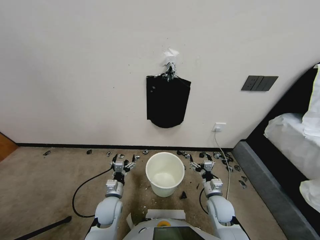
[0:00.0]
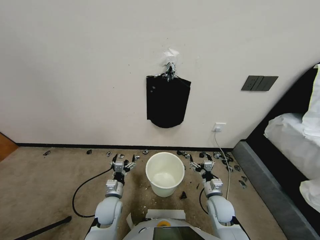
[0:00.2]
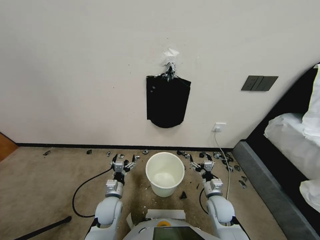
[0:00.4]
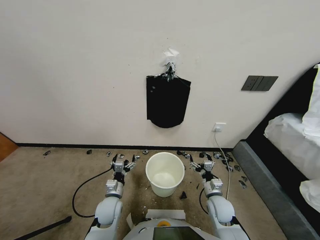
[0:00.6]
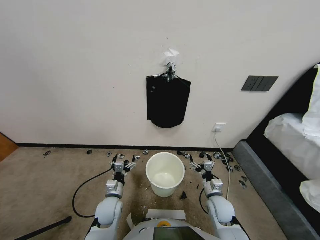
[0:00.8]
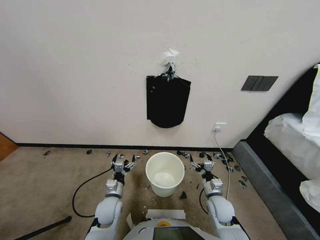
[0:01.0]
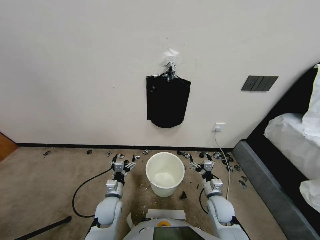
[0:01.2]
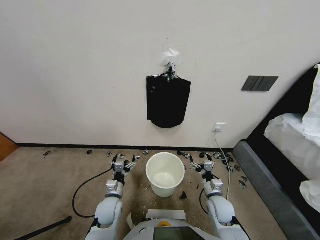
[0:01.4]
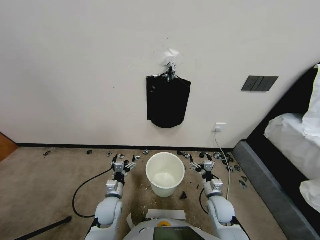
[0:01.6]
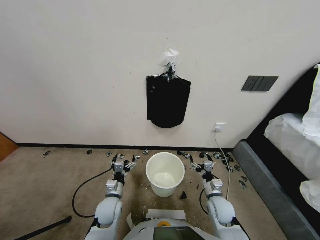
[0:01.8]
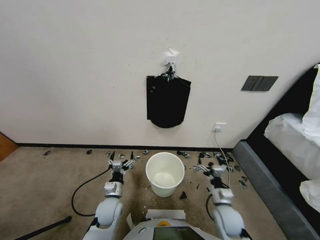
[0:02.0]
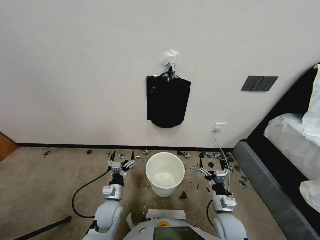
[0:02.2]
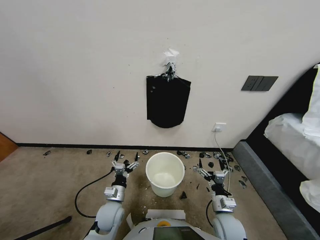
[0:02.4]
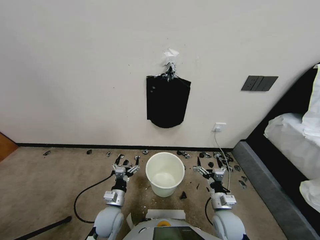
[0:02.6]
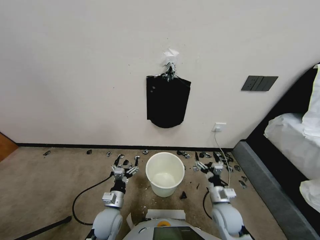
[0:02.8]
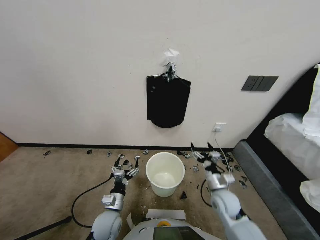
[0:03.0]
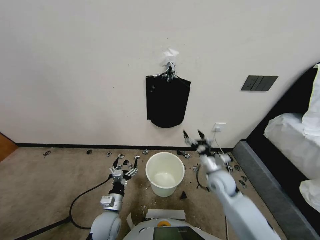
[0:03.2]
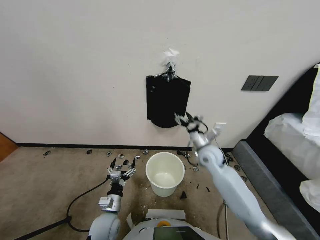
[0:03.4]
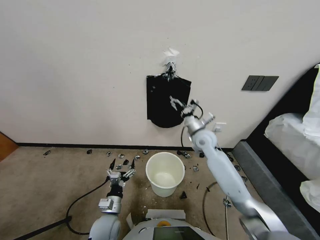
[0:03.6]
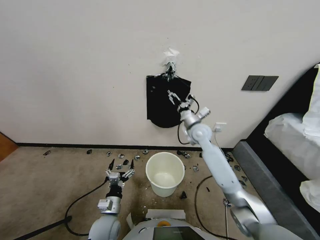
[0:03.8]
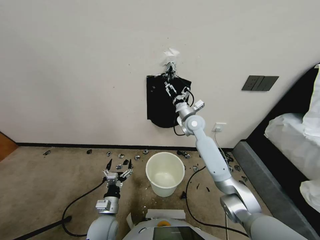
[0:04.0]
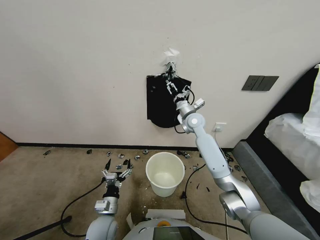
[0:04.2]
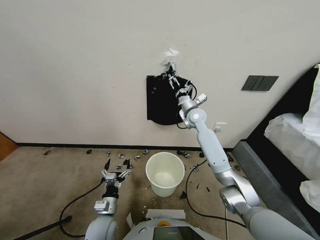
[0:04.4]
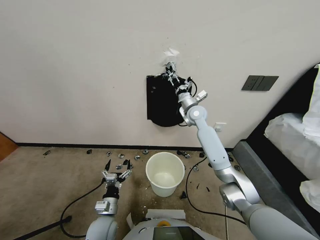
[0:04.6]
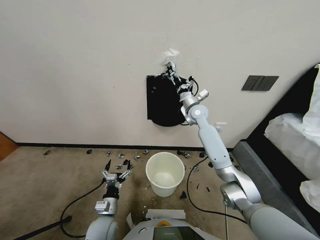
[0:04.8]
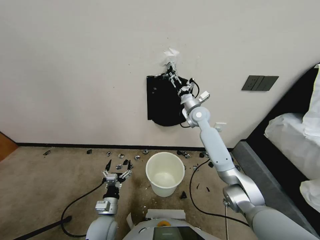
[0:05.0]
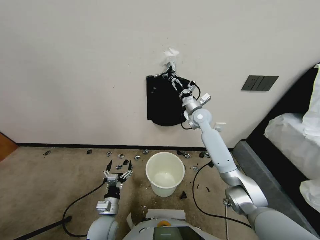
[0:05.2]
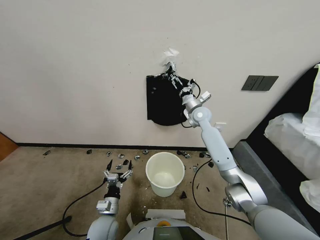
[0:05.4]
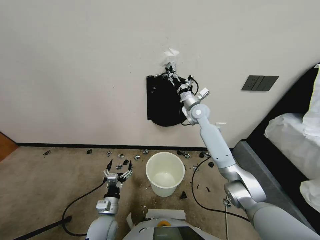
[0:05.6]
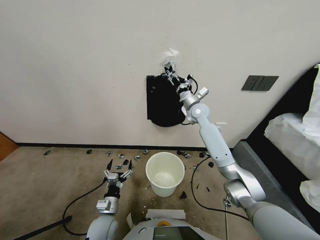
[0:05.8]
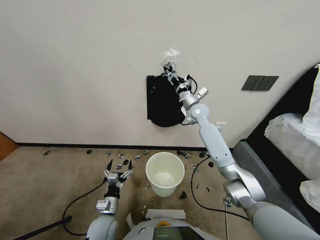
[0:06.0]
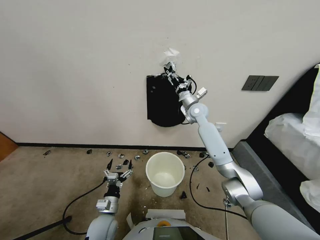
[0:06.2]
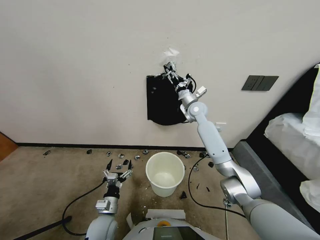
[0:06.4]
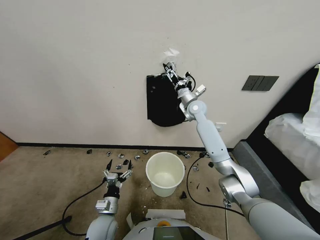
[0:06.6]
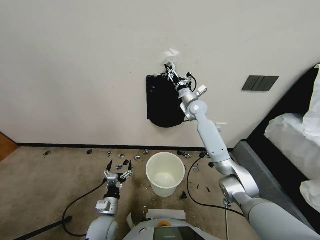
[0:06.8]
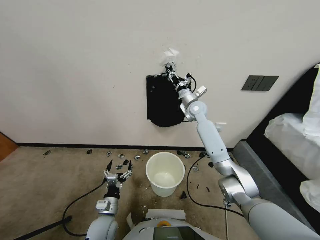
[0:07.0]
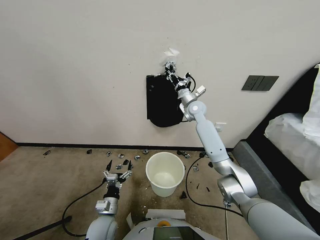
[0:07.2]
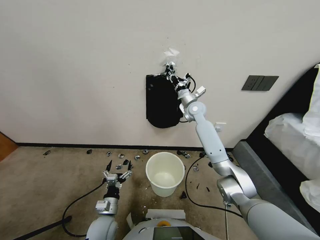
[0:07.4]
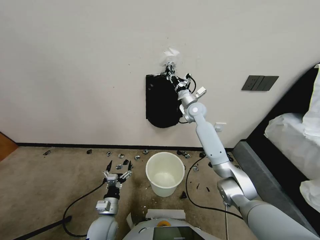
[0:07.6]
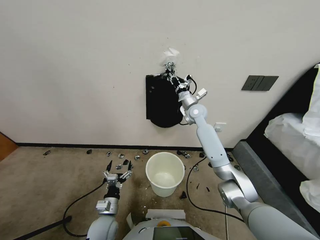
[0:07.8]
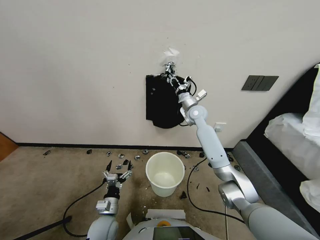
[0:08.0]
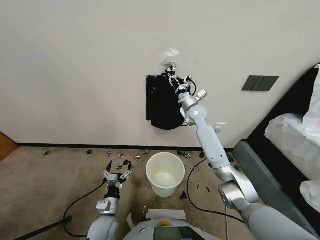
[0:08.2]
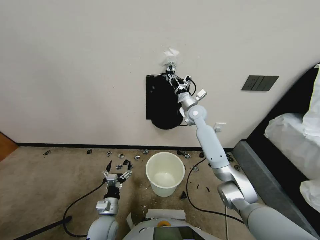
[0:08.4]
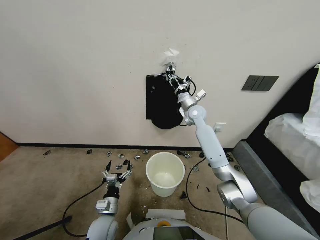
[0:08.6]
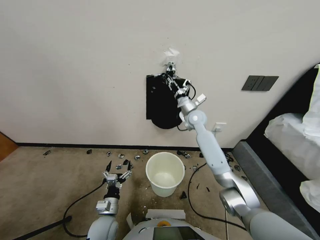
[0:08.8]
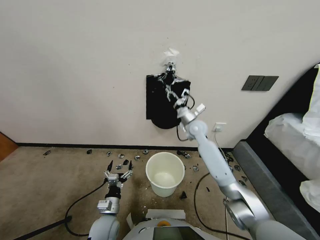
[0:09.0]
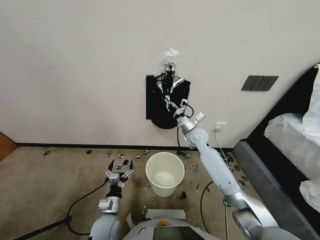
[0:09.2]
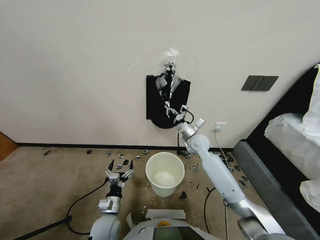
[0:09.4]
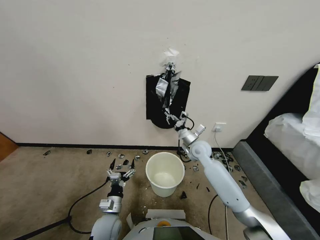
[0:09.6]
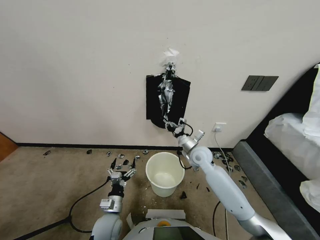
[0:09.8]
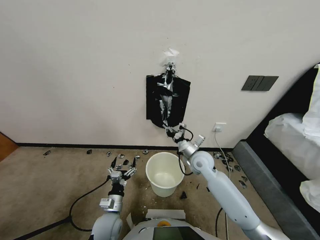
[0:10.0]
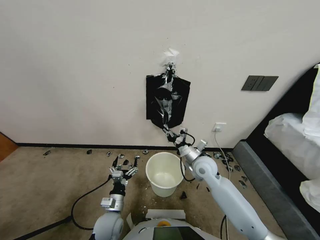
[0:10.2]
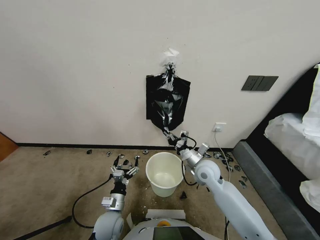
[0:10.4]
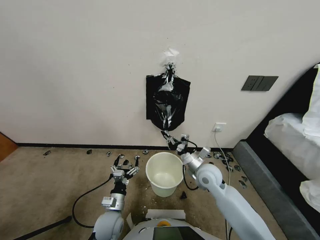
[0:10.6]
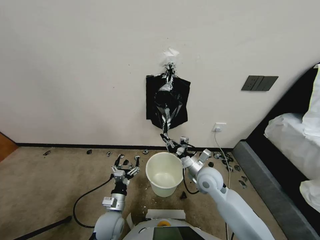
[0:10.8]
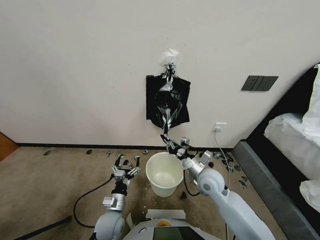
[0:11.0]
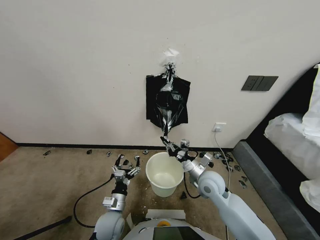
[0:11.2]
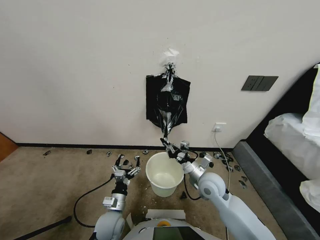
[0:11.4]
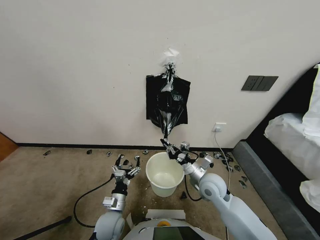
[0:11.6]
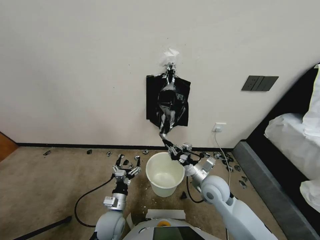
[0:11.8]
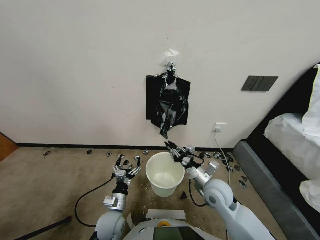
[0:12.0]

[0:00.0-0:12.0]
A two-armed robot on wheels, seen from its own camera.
Task of the whole recording: Place a trash bag onto the trash bin.
0:01.6 to 0:03.0: The right gripper is displaced upward by about 5 cm, while the left gripper goes about 5 cm backward.
0:03.0 to 0:04.4: The right gripper goes roughly 30 cm forward and upward.
0:04.4 to 0:06.0: The grippers move only a little.
0:06.0 to 0:07.6: The right gripper closes.
0:07.6 to 0:09.0: The right gripper travels backward and downward by approximately 10 cm.
0:09.0 to 0:10.4: The right gripper travels backward by some 15 cm.
0:10.4 to 0:12.0: The right gripper heads backward, covering about 10 cm, and opens up.

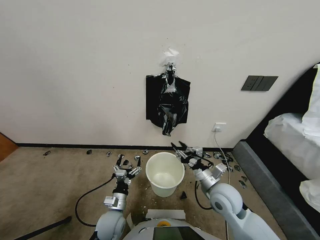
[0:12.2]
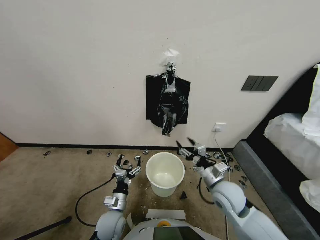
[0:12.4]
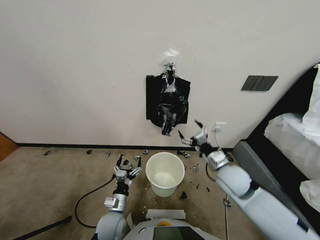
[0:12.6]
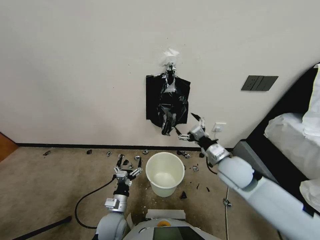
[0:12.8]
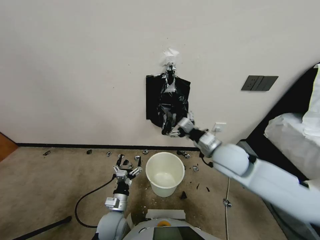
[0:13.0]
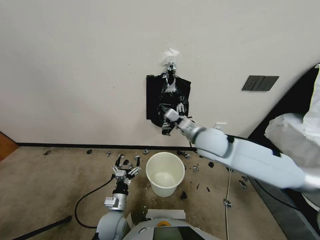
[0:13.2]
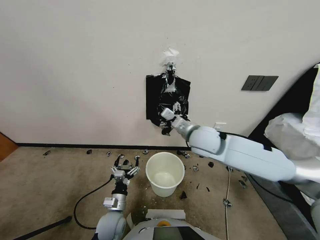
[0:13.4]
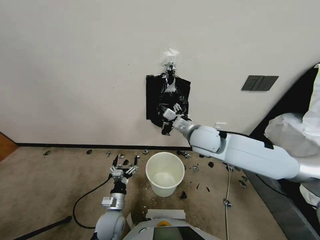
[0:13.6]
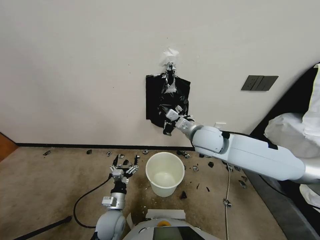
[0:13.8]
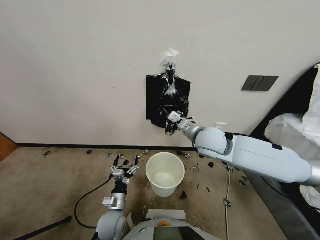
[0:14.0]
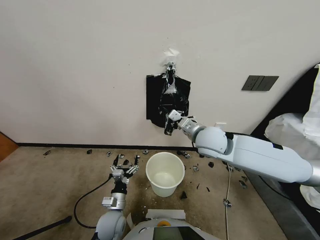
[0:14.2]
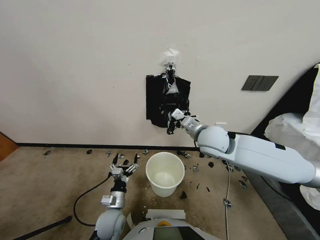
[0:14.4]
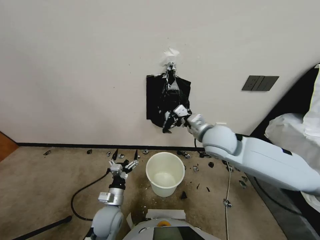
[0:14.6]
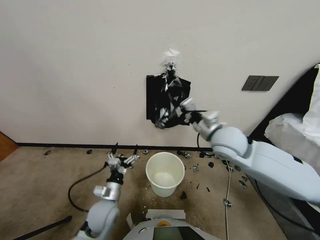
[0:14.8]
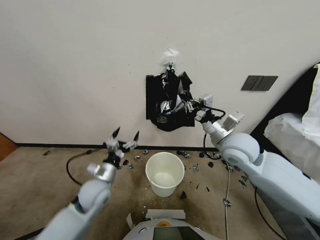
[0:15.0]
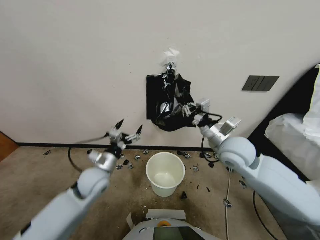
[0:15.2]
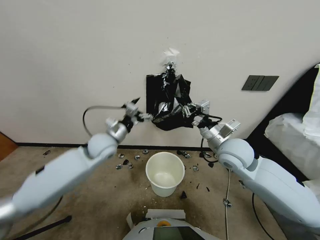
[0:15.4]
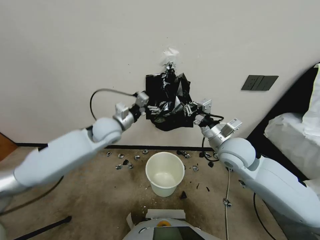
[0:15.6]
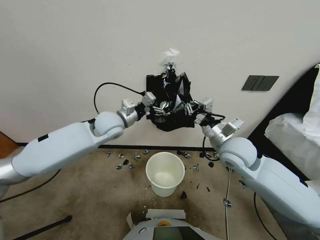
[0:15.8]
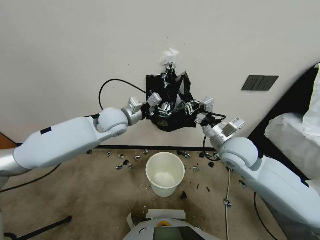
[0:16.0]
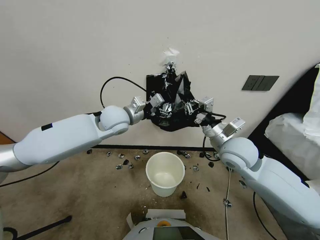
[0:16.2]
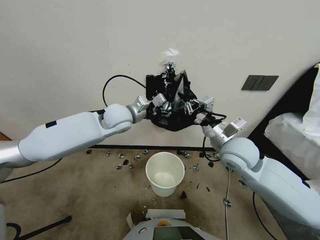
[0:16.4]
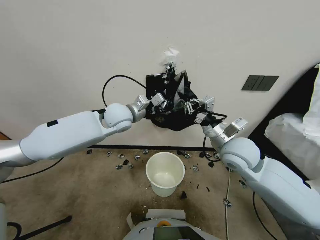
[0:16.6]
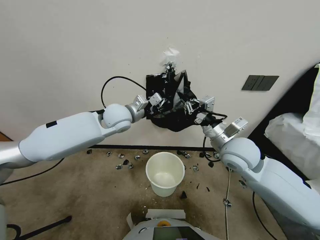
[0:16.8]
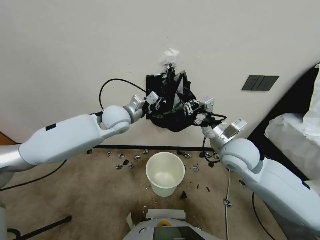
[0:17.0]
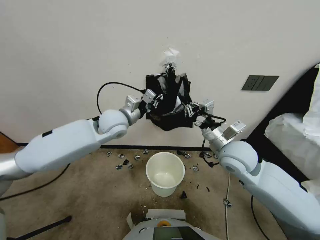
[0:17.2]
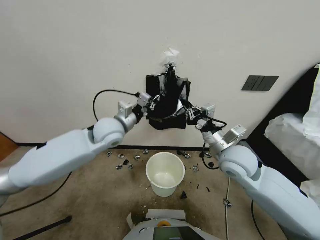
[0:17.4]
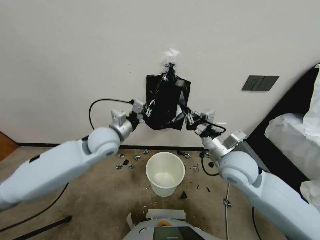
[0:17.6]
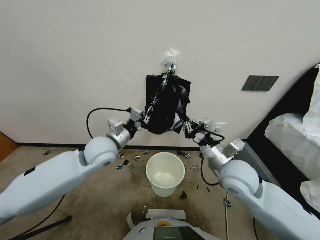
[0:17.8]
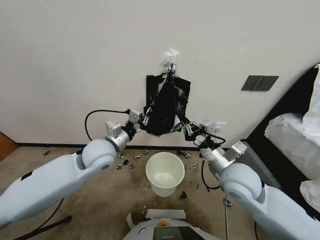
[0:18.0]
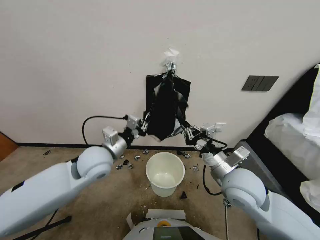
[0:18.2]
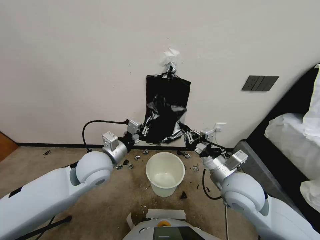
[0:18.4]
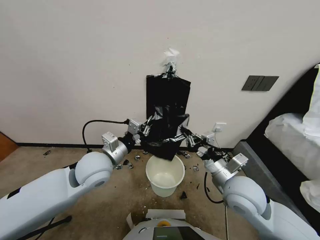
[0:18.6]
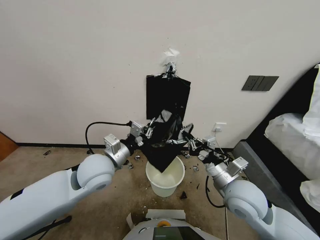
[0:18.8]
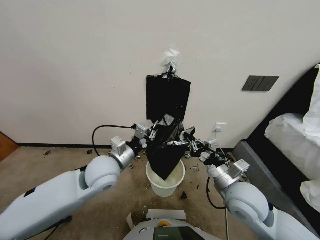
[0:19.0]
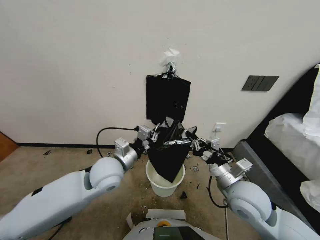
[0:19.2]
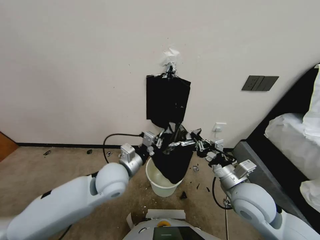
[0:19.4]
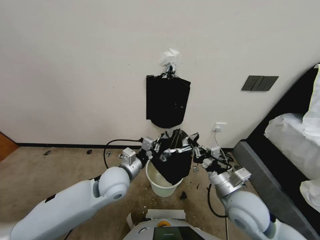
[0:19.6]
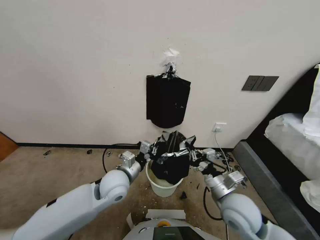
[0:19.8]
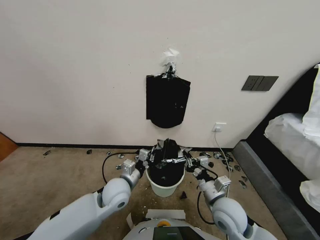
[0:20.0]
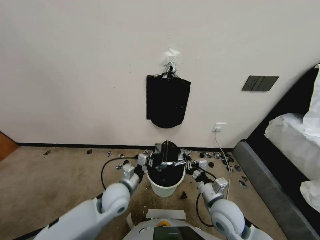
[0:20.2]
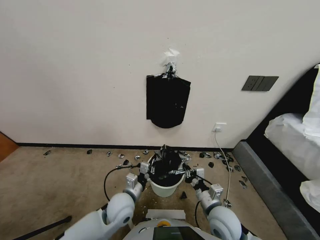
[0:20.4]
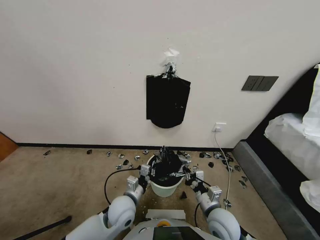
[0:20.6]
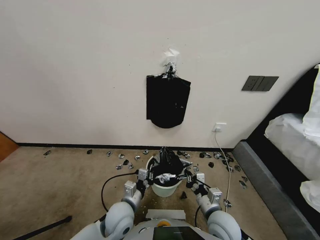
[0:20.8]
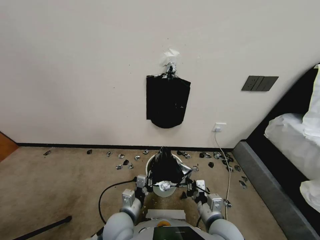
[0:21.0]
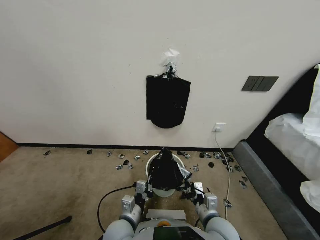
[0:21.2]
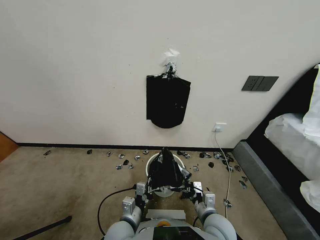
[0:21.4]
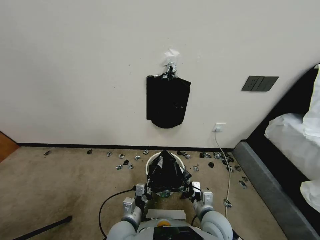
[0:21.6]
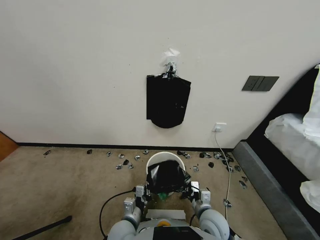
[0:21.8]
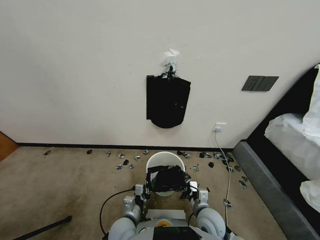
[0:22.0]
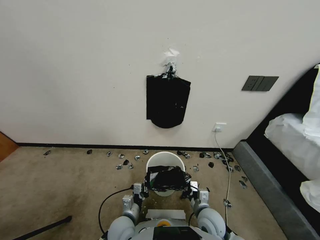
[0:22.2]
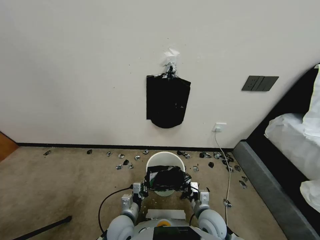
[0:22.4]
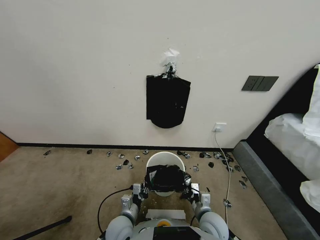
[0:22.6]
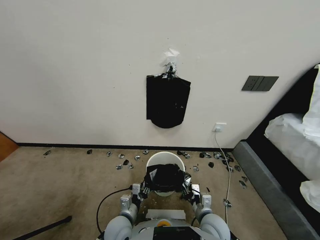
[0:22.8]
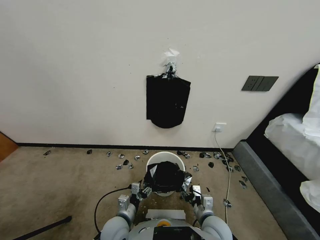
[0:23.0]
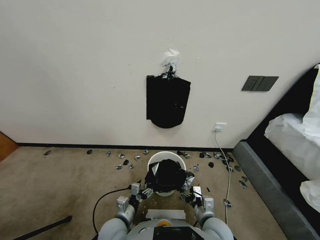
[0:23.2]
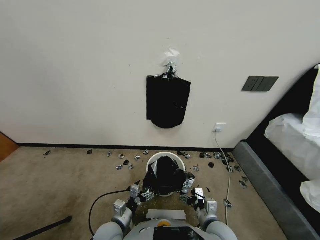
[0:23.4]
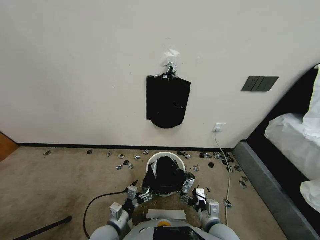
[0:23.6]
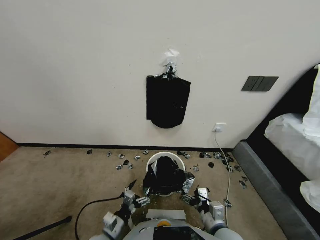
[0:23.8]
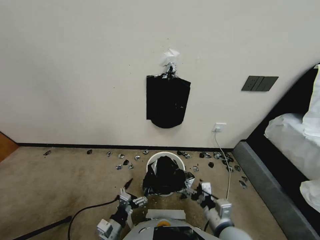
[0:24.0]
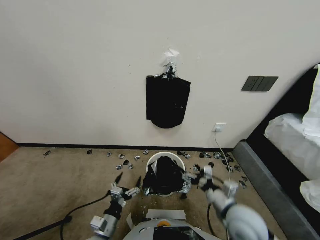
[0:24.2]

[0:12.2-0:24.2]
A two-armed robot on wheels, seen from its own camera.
Task of the whole recording: Place a trash bag onto the trash bin.
0:12.2 to 0:13.8: The right gripper is displaced upward, forward and to the left by approximately 20 cm, and opens, then closes again.
0:13.8 to 0:15.2: The right gripper goes roughly 5 cm to the right, and closes its fingers. Meanwhile the left gripper travels upward and forward by roughly 25 cm.
0:15.2 to 0:16.6: The left gripper heads upward, forward and to the right, covering roughly 20 cm, and closes its fingers.
0:16.6 to 0:18.2: The left gripper heads backward and downward, covering approximately 15 cm, and closes; the right gripper heads backward and downward, covering roughly 10 cm.
0:18.2 to 0:19.8: The grippers both shift downward by about 10 cm.
0:19.8 to 0:21.2: The right gripper travels downward by about 5 cm. Meanwhile the left gripper shifts roughly 15 cm backward and downward.
0:21.2 to 0:22.6: The right gripper opens, while the left gripper travels downward by approximately 5 cm, and opens up.
0:22.6 to 0:24.2: The left gripper travels to the left and backward by some 10 cm, and opens. Meanwhile the right gripper shifts roughly 15 cm upward and to the right, and opens.
